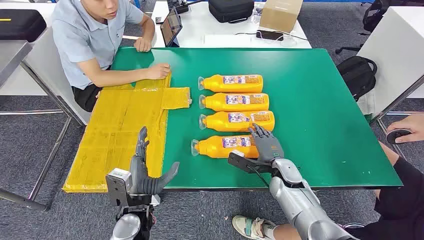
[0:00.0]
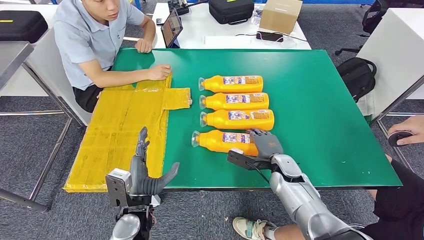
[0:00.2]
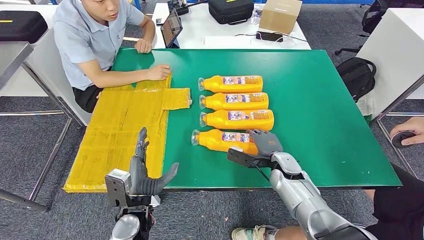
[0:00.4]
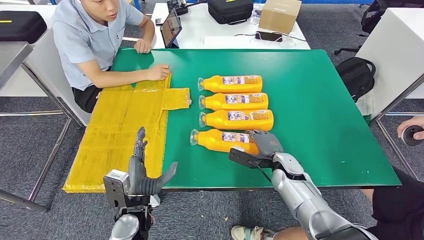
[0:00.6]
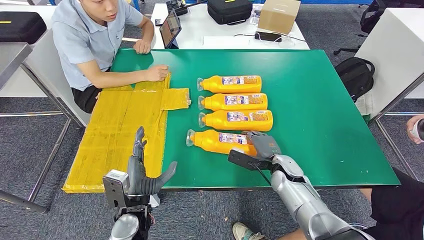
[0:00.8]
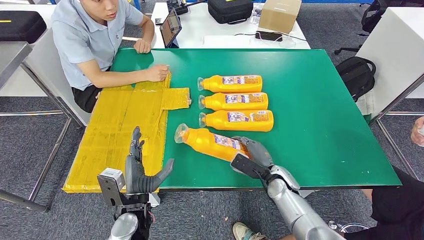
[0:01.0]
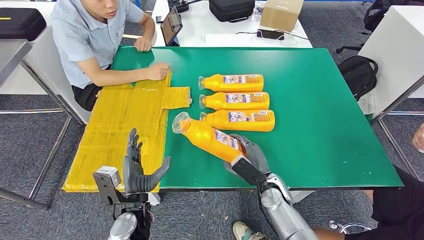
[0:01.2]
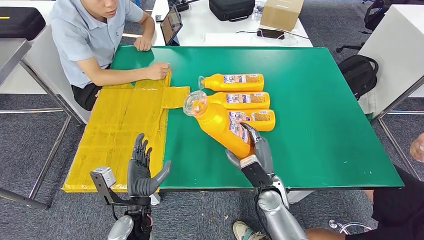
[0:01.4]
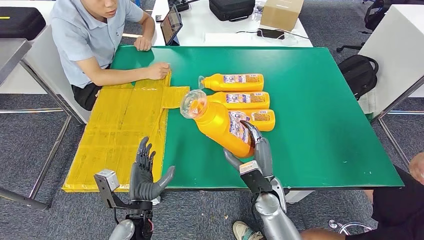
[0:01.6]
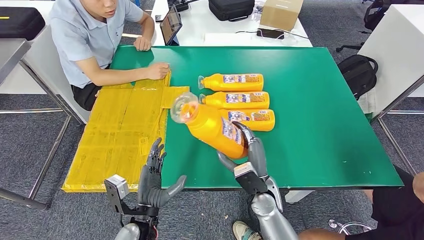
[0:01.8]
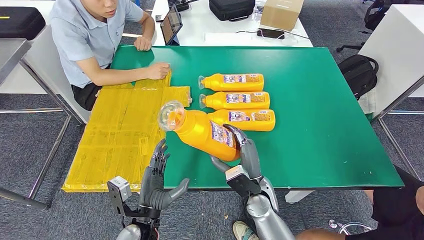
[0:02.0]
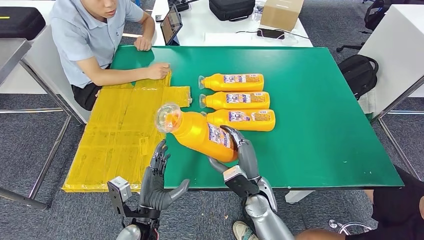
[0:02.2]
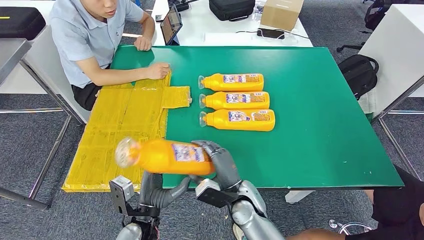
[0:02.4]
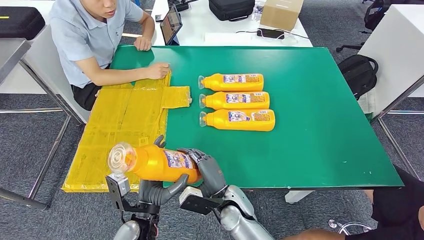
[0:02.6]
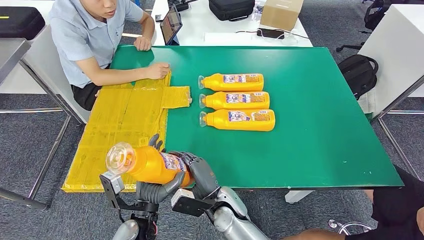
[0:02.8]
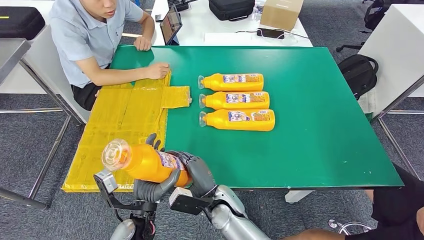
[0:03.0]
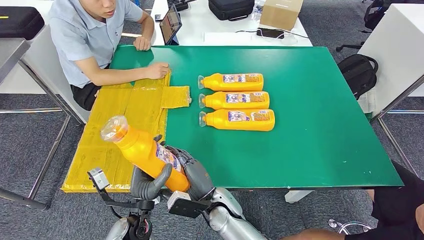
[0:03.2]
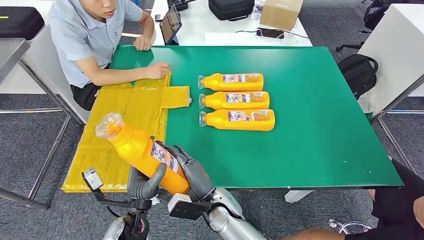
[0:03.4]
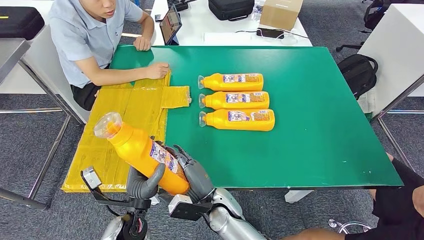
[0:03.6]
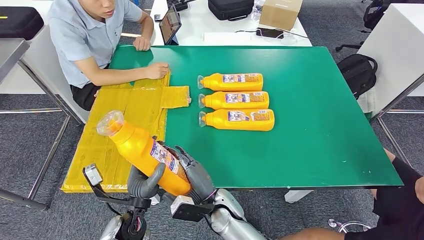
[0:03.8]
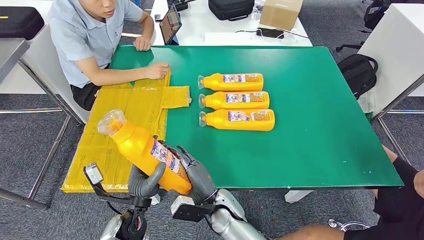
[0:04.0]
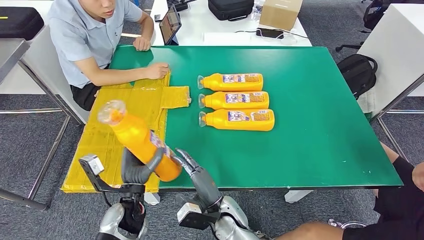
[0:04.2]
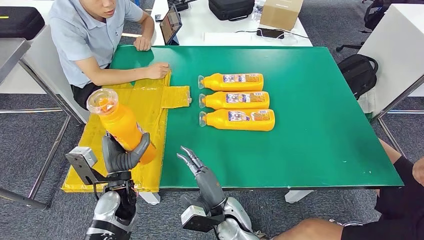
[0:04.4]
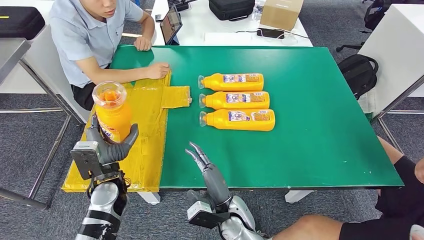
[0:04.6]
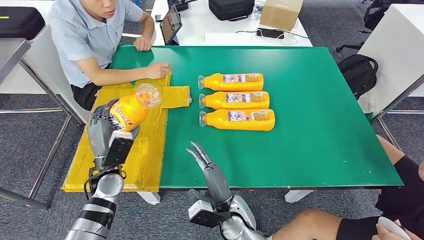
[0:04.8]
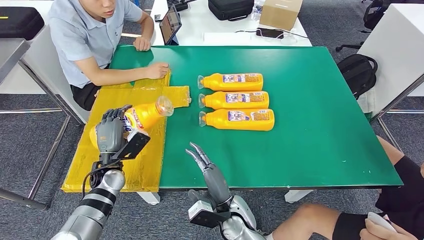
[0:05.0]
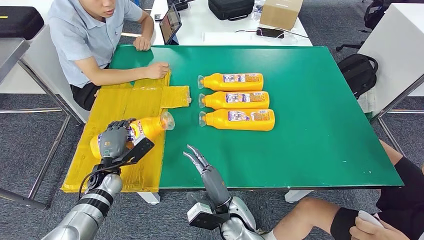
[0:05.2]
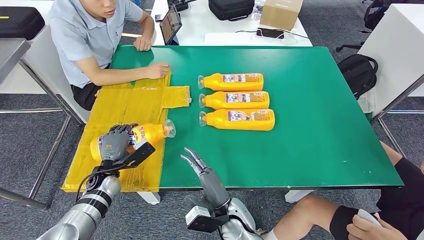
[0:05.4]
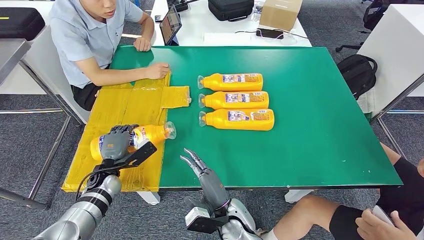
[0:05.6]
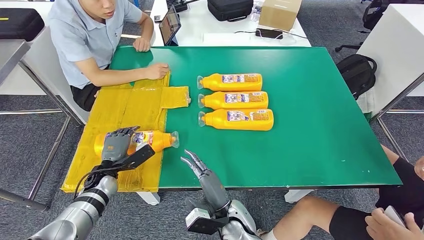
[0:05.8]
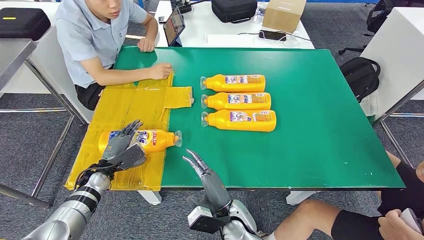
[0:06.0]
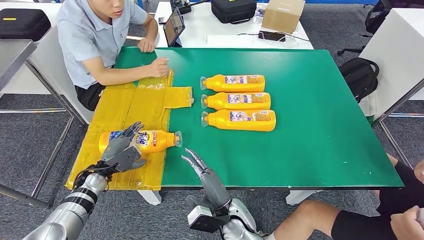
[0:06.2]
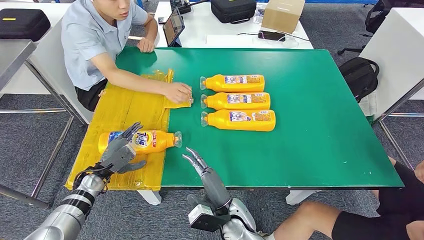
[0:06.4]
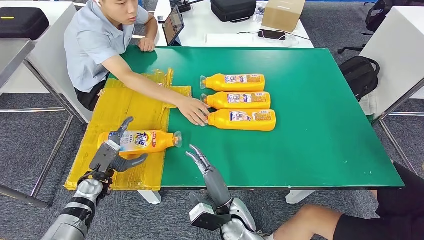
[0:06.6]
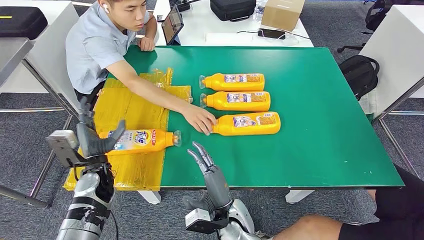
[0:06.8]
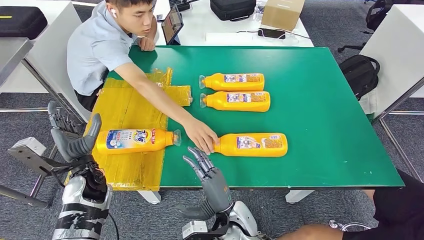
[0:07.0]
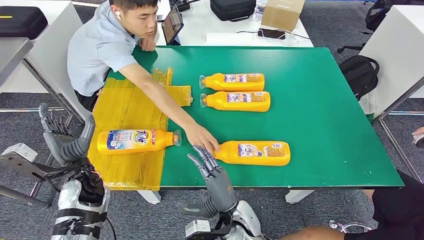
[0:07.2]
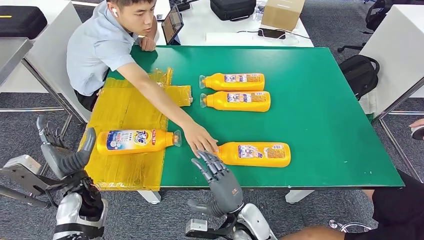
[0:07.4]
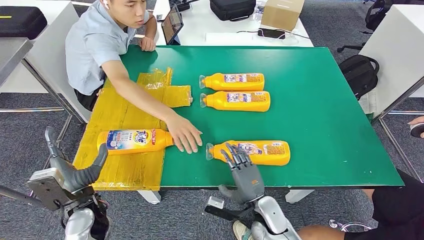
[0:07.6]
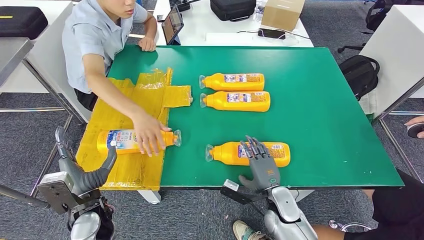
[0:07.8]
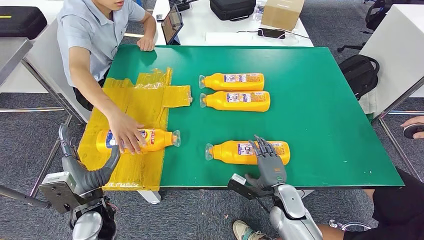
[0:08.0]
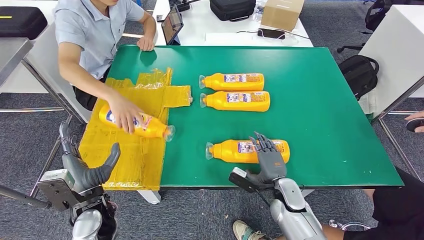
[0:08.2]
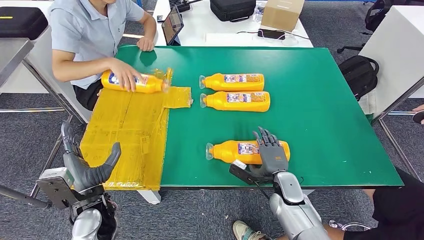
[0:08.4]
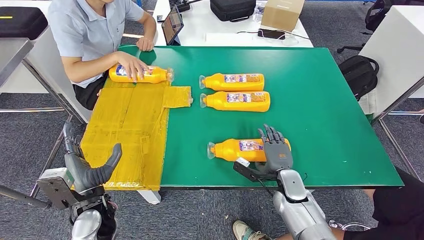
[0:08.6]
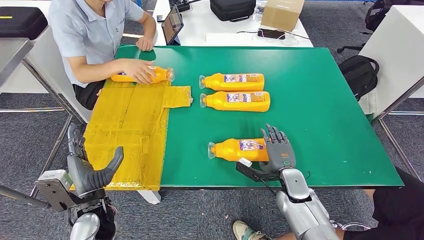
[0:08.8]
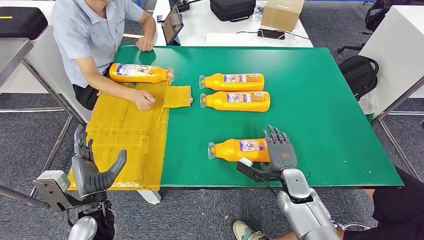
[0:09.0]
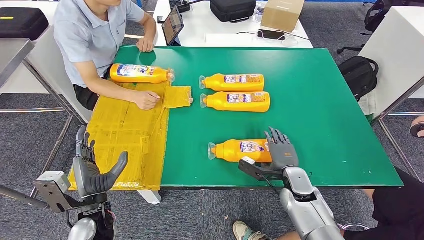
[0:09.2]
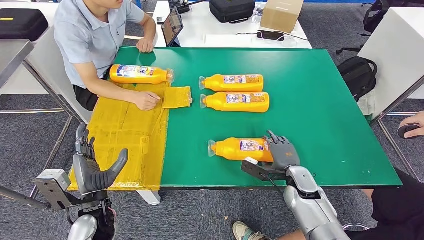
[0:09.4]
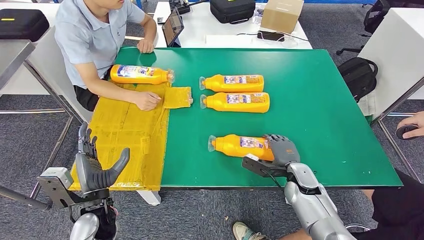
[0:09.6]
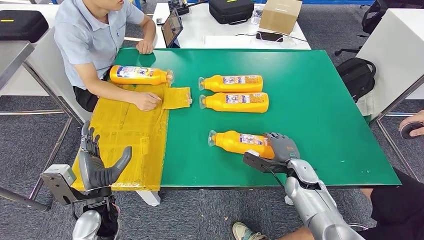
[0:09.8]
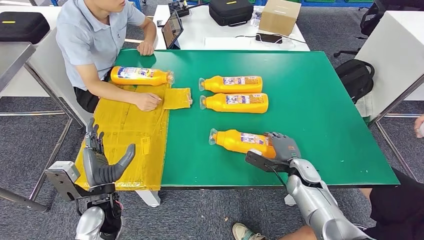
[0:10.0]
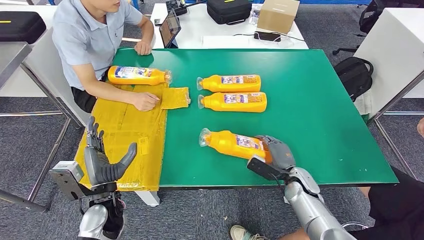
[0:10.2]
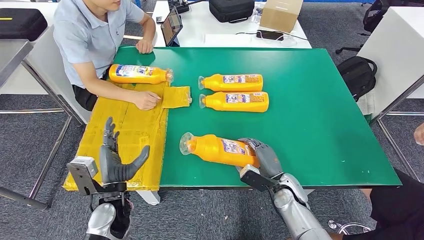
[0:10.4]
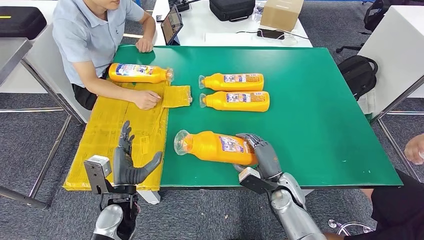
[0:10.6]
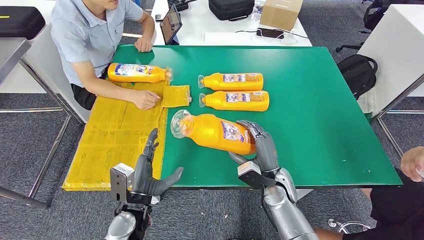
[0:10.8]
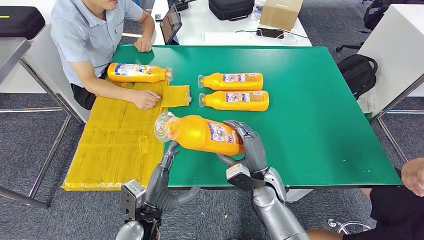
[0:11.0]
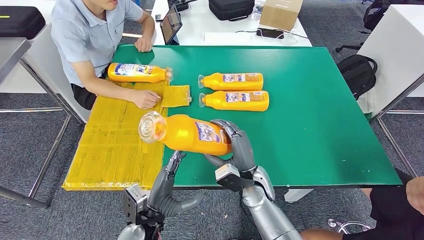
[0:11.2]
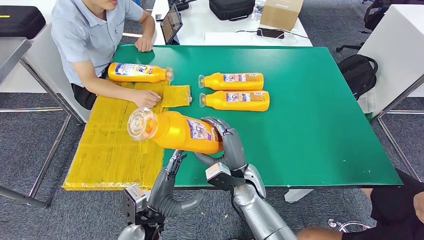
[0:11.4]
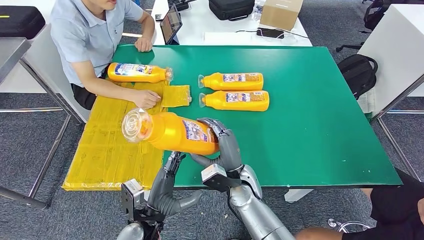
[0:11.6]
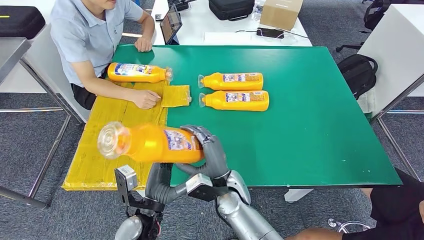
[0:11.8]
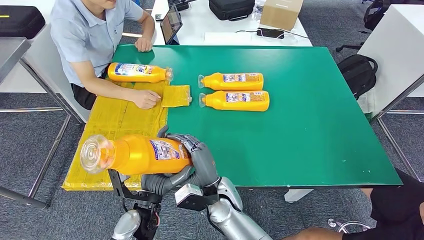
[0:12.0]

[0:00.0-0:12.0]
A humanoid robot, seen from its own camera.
Step, 0:00.0 to 0:01.2: Take the fast-moving consumer goods bottle from the table.
Step, 0:02.6 to 0:05.8: Flip the fast-moving consumer goods bottle to the front side.
Step, 0:08.6 to 0:11.8: Pick up the fast-moving consumer goods bottle from the table.
0:01.6 to 0:03.0: The right hand shifts some 10 cm to the left.
0:03.0 to 0:04.4: The left hand travels forward and to the left by about 10 cm.

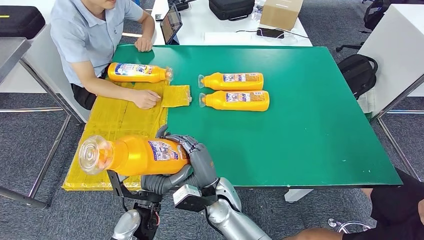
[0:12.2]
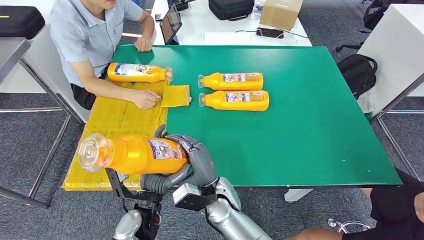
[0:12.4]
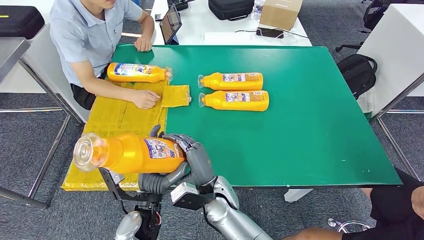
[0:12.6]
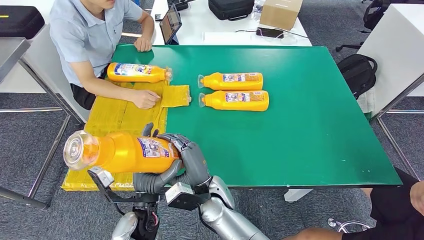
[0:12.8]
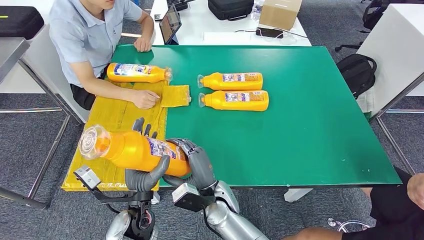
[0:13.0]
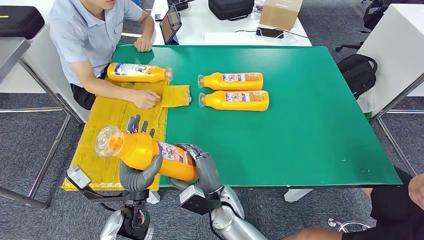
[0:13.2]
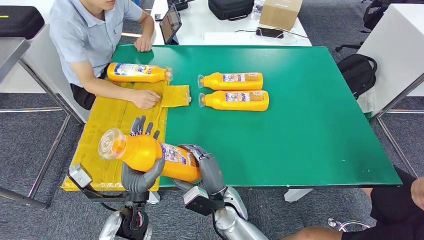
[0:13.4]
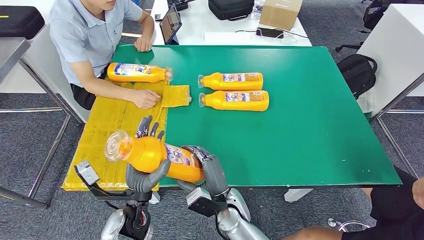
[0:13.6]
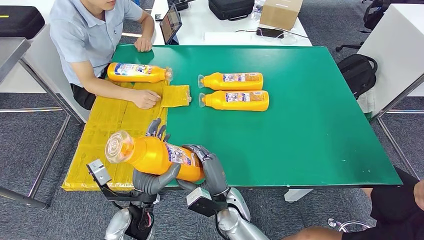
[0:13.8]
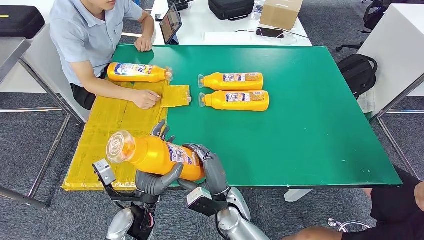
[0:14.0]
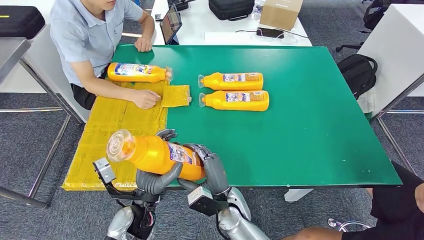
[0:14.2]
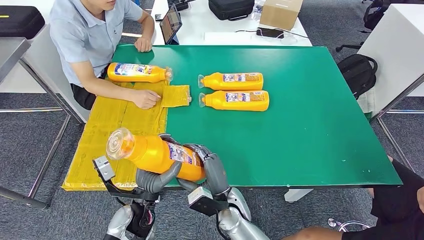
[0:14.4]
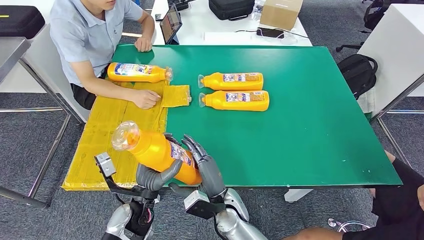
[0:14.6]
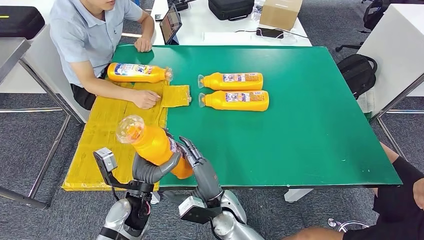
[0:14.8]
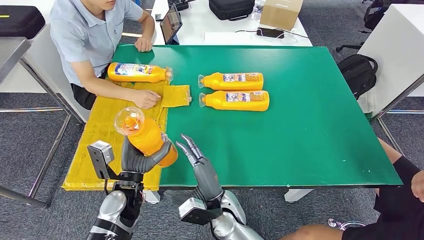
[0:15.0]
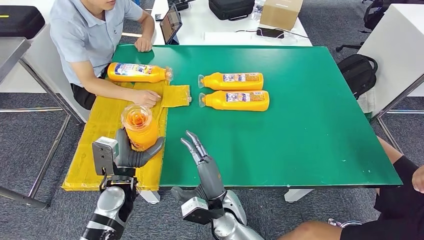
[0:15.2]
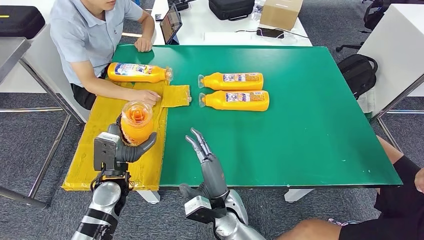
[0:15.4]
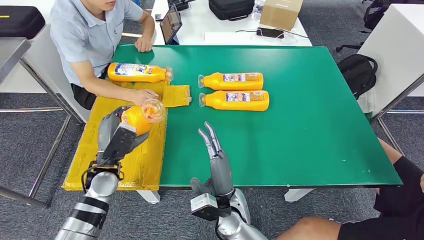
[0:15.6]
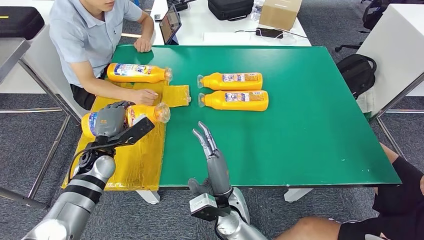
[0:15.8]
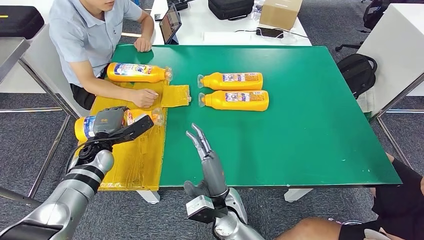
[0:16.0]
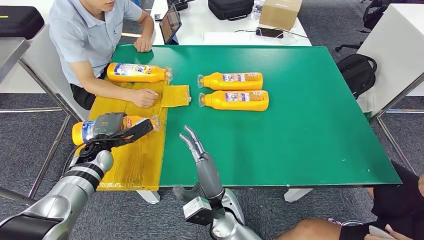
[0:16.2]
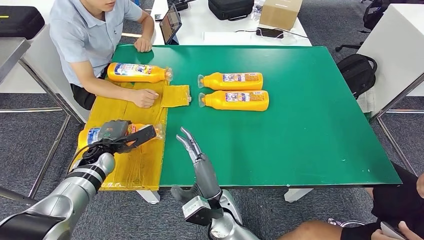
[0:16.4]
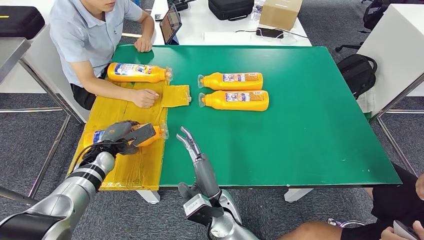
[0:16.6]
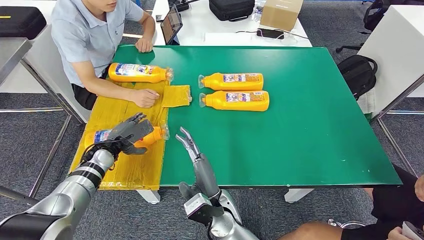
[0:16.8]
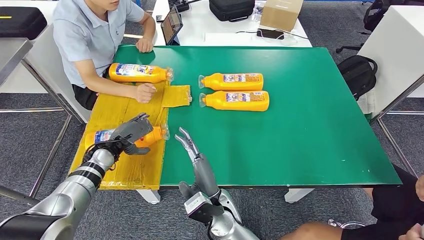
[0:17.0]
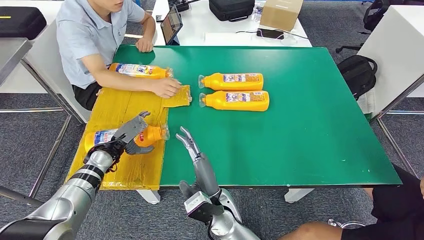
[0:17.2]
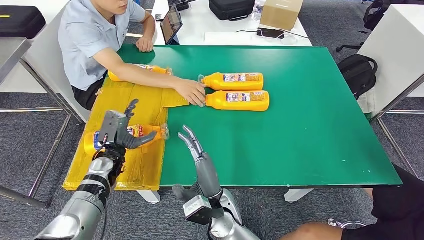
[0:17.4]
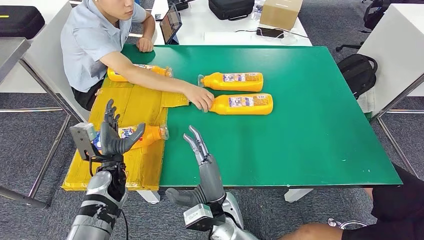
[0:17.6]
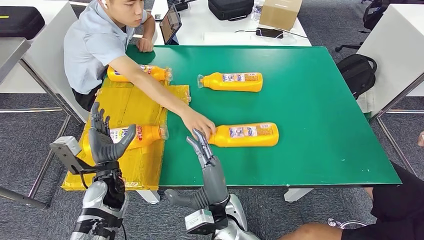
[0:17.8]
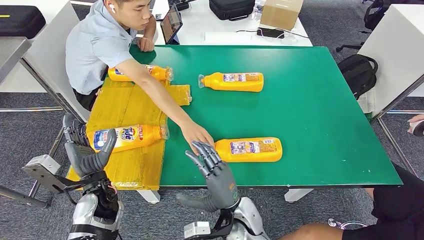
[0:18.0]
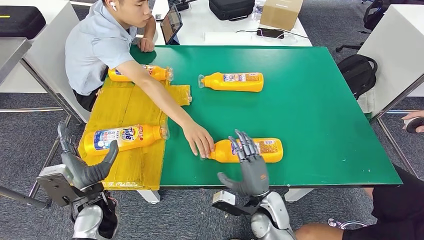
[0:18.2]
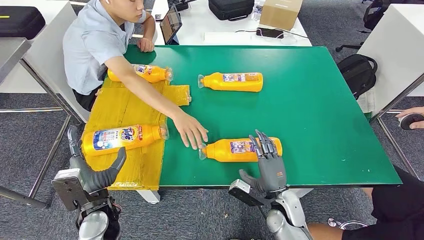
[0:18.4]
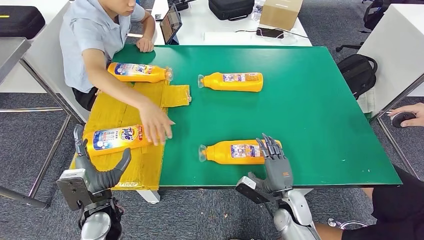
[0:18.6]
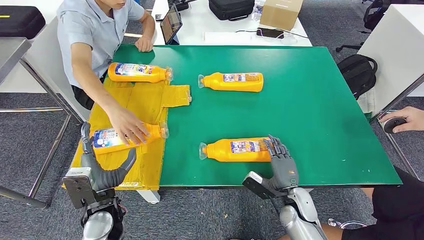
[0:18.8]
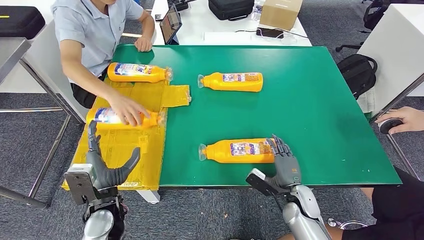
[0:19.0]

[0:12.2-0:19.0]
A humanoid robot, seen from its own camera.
Step, 0:13.4 to 0:17.6: Flip the fast-moving consumer goods bottle to the front side.
0:13.6 to 0:15.0: The left hand ends up some 5 cm from where it was.
0:15.0 to 0:16.2: The left hand goes some 20 cm forward and to the left.
